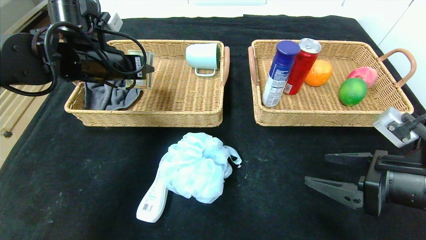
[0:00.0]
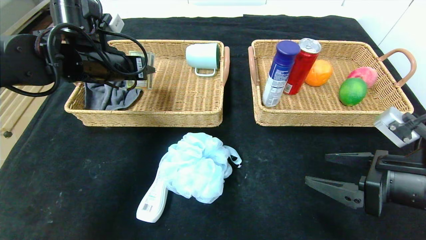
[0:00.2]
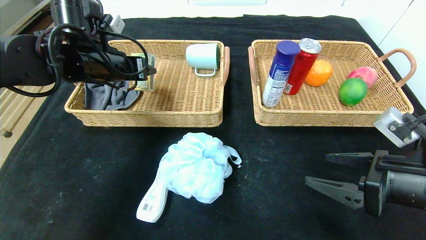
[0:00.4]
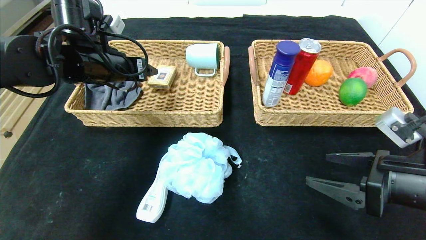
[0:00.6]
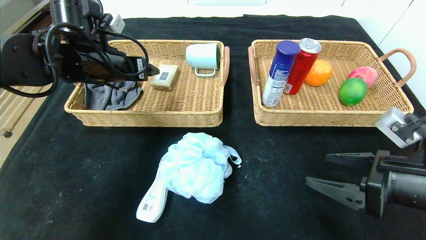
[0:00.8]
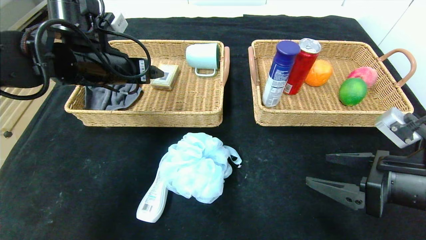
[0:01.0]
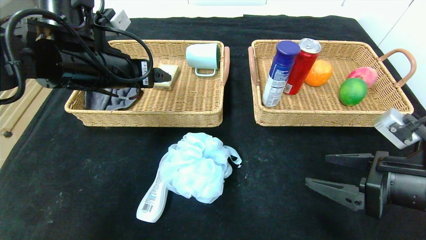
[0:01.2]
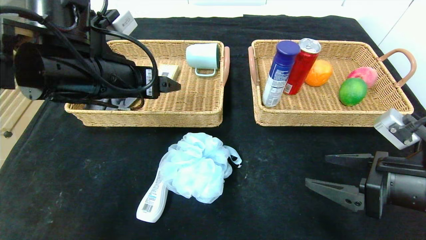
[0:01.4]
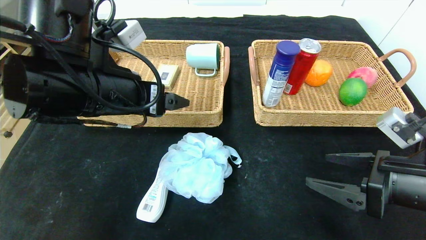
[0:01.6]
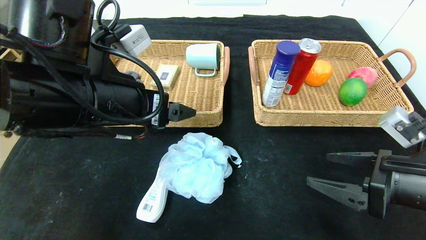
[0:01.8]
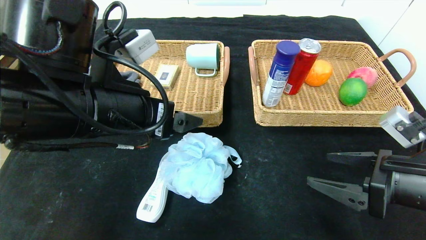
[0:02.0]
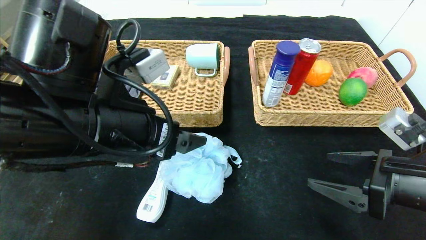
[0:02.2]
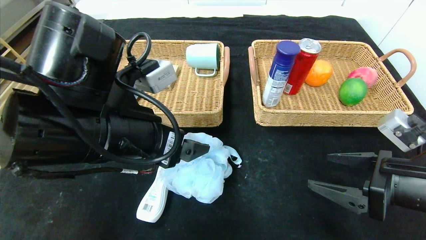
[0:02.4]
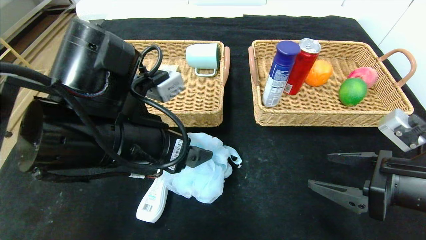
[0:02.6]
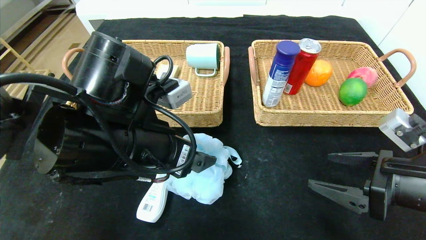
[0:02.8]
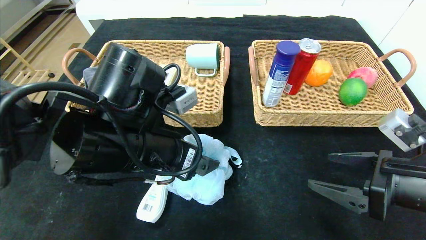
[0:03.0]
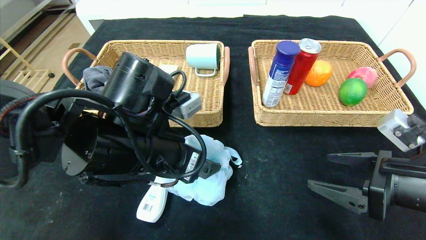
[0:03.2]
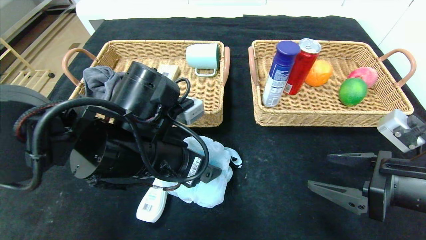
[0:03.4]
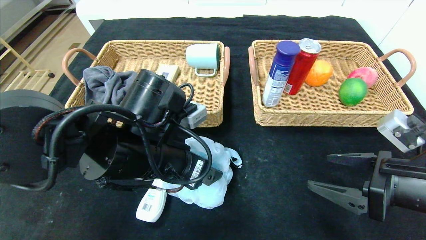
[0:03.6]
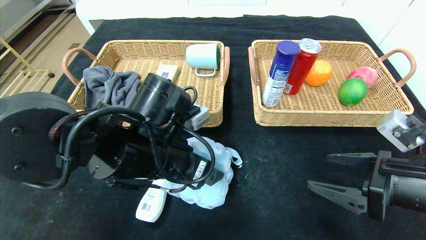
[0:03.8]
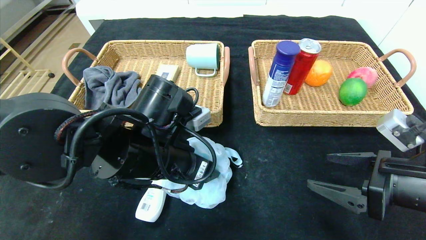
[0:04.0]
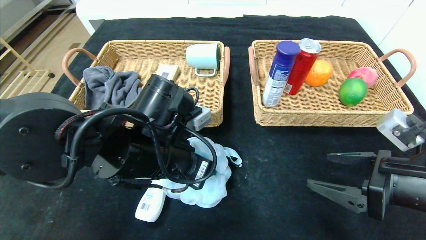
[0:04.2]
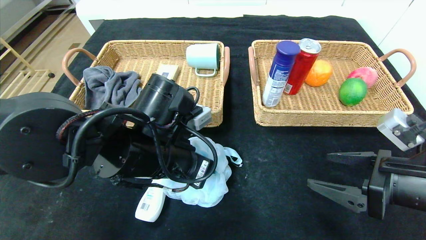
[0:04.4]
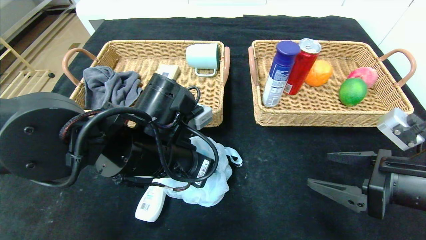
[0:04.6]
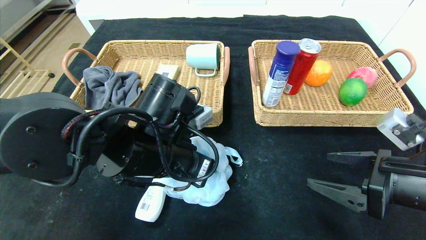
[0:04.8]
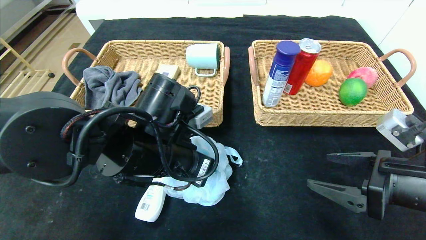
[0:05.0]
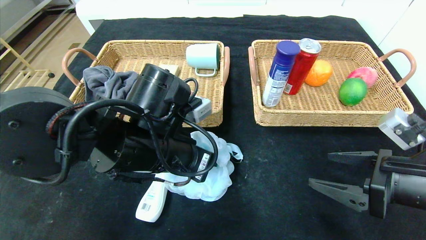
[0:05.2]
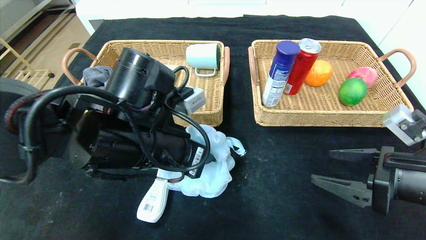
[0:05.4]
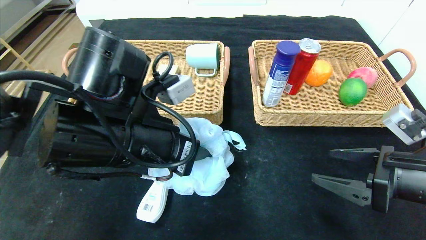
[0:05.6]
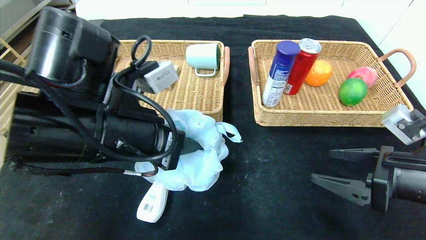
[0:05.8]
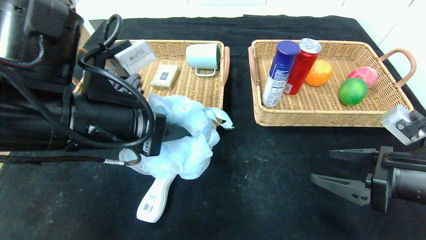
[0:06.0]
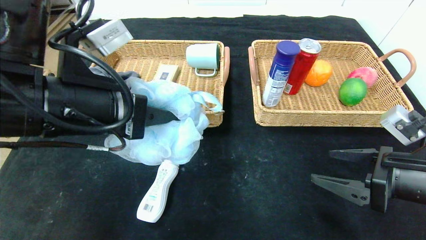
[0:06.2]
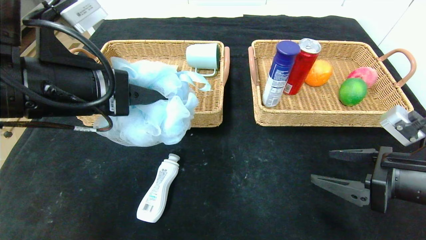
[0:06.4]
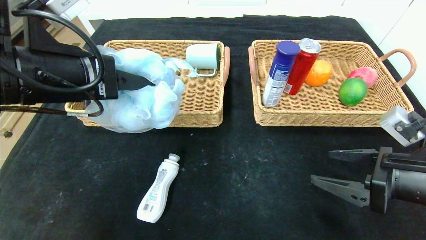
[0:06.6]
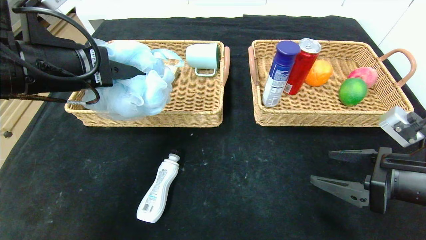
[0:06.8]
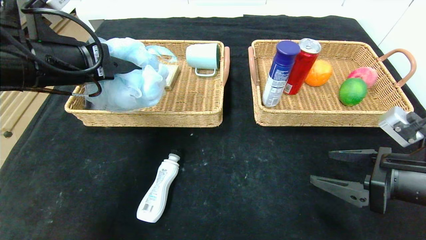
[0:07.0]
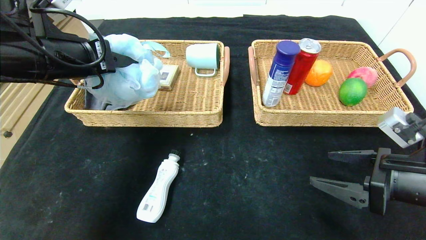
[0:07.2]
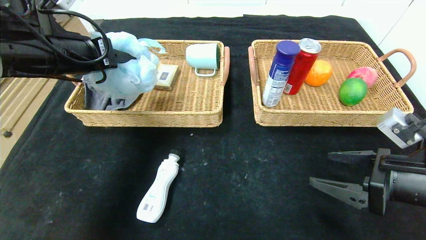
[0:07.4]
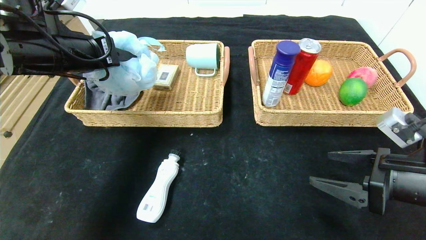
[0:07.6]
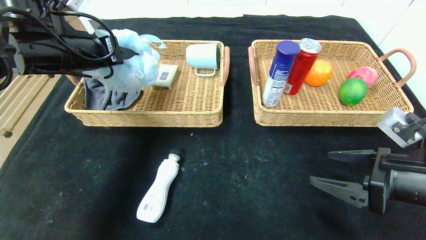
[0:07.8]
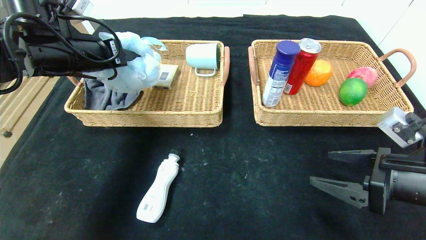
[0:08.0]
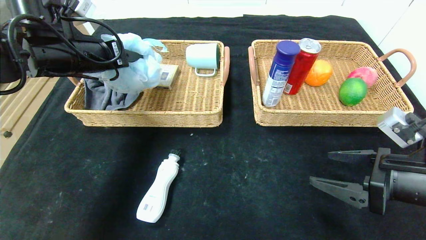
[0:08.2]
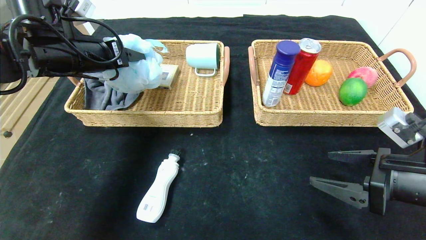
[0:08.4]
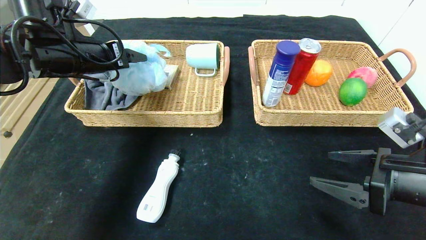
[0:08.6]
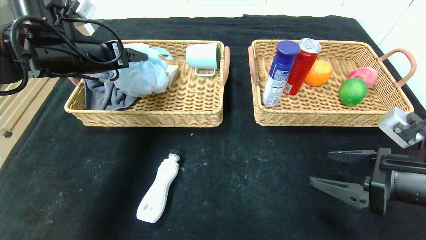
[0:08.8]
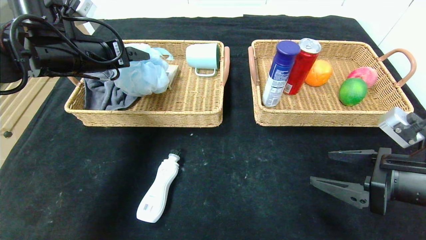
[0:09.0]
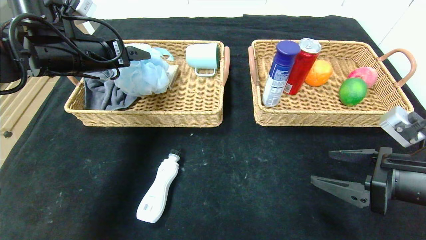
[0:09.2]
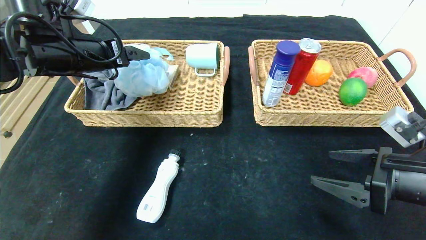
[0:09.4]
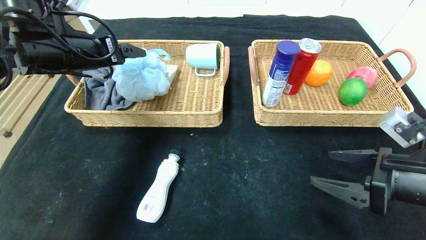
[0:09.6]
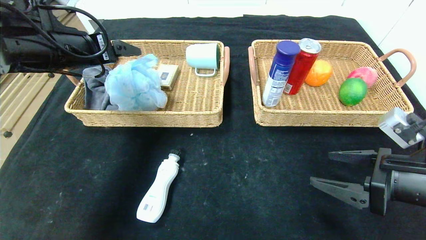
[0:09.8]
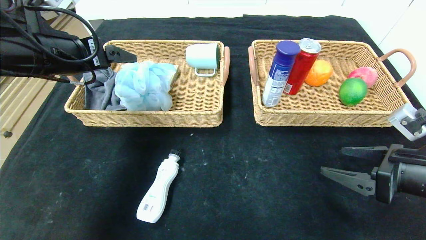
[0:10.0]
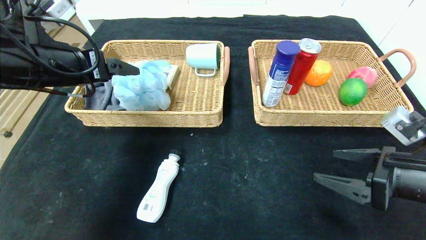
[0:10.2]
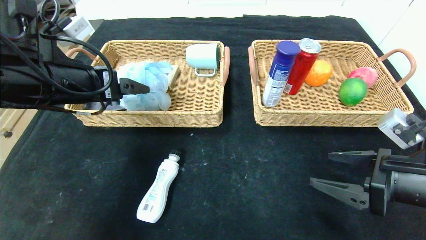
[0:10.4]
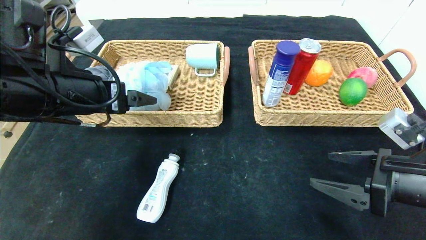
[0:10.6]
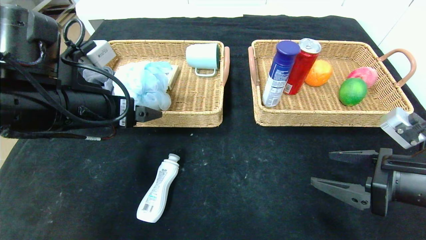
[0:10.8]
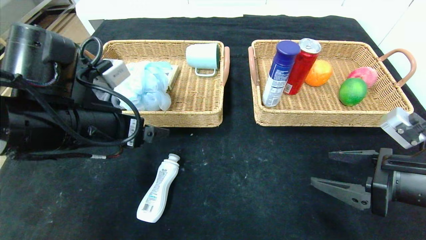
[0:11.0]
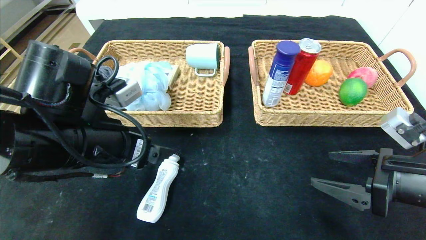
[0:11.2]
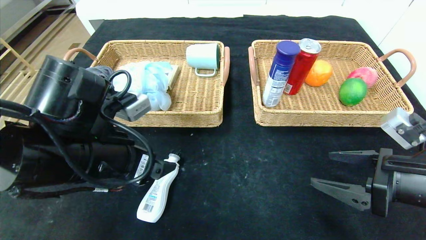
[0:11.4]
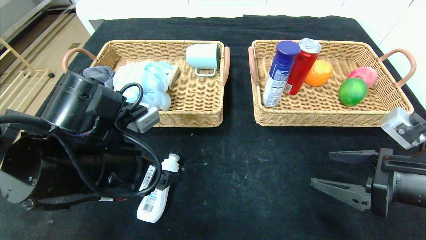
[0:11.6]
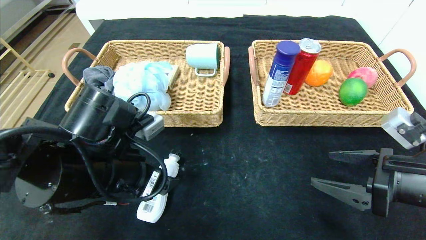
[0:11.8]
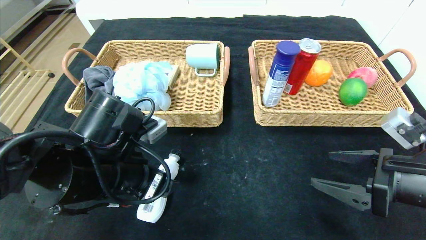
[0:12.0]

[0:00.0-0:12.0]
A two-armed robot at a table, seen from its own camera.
Step, 0:00.8 to 0:09.0: Grasp the bath ball and put it in the left basket.
0:00.0 to 0:01.6: The left gripper heads backward and to the right, covering approximately 15 cm, and opens up.
0:01.6 to 0:03.0: The left gripper goes about 5 cm downward.
0:03.0 to 0:04.4: The left gripper closes up.
0:04.4 to 0:06.0: The left gripper goes some 10 cm upward and to the left.
0:06.0 to 0:07.6: The left gripper travels forward and to the left by roughly 15 cm.
0:07.6 to 0:09.0: The left gripper opens up.
0:09.0 to 0:10.4: The left gripper moves backward, approximately 10 cm.
0:10.4 to 0:12.0: The left gripper goes roughly 15 cm downward, to the right and backward.

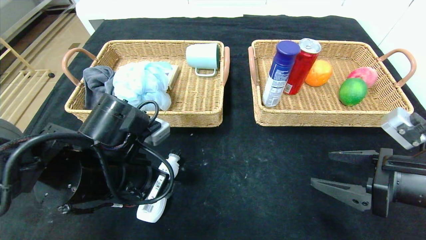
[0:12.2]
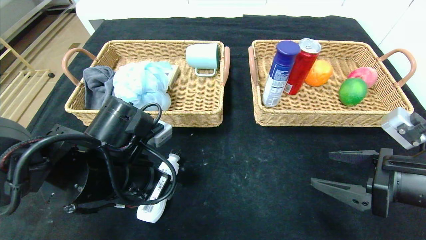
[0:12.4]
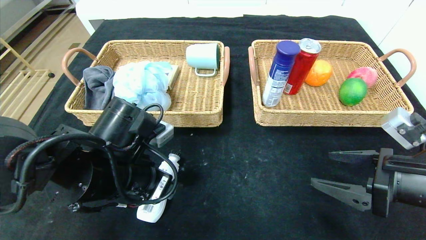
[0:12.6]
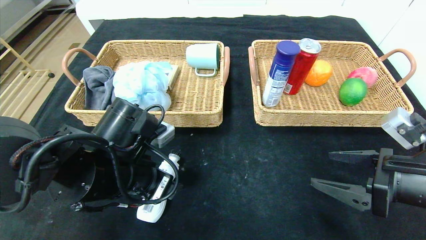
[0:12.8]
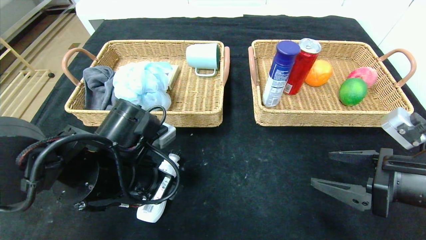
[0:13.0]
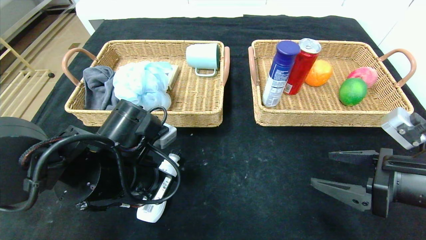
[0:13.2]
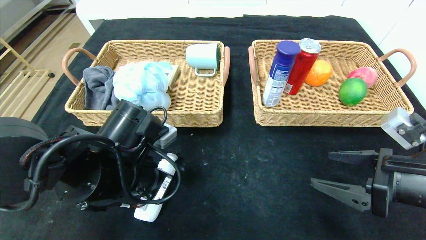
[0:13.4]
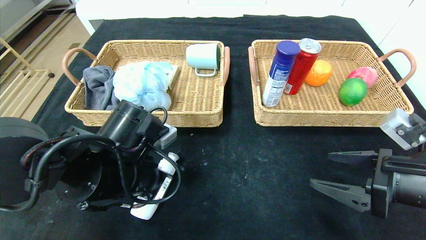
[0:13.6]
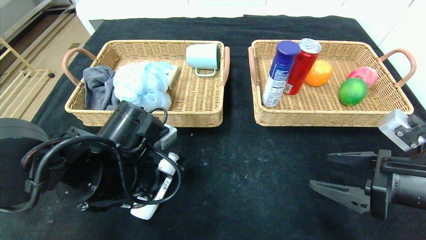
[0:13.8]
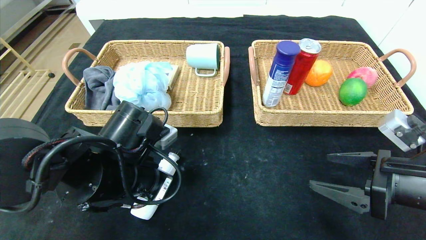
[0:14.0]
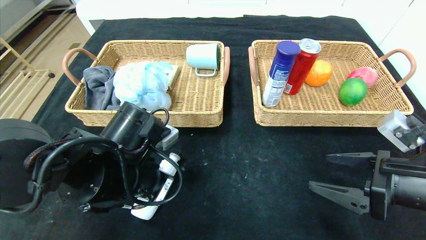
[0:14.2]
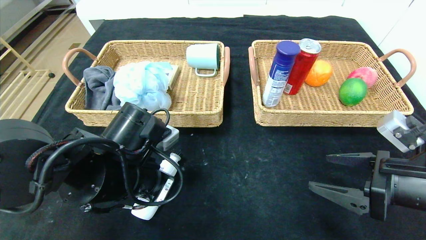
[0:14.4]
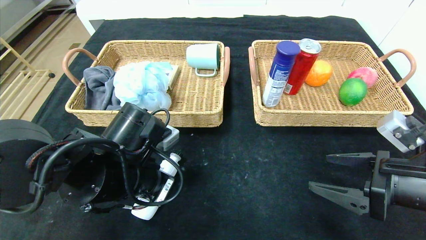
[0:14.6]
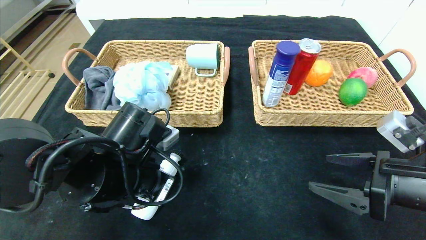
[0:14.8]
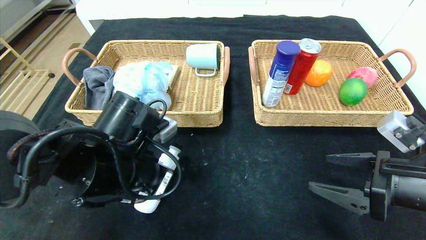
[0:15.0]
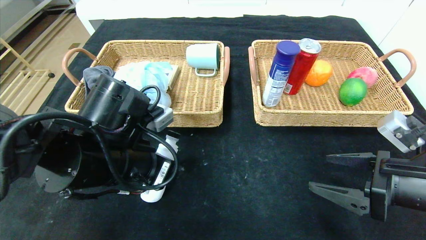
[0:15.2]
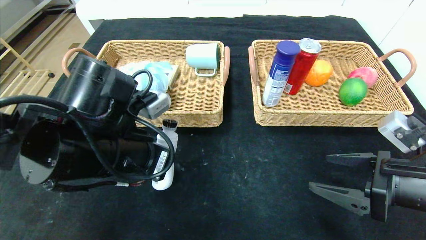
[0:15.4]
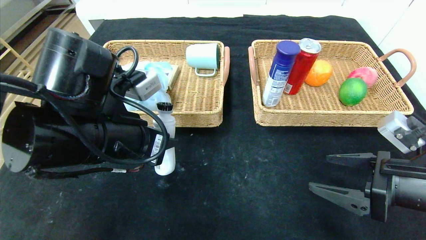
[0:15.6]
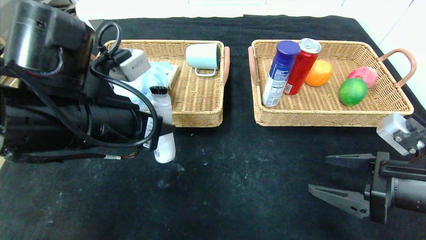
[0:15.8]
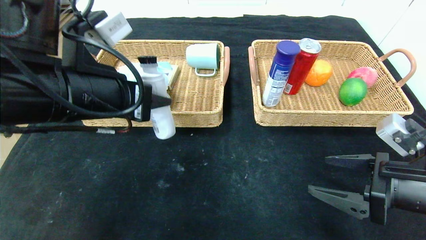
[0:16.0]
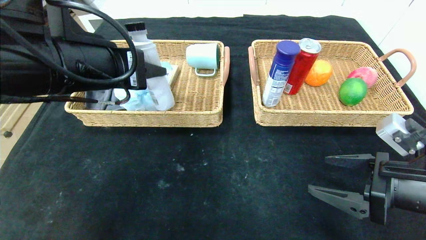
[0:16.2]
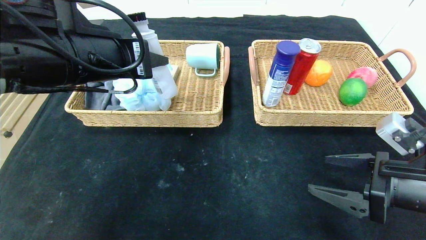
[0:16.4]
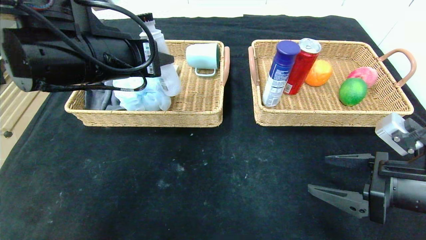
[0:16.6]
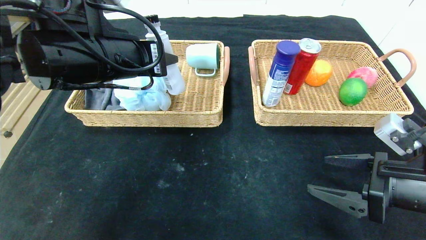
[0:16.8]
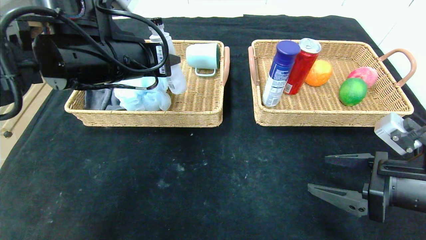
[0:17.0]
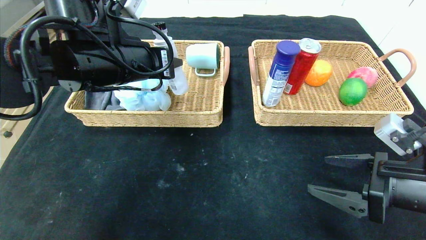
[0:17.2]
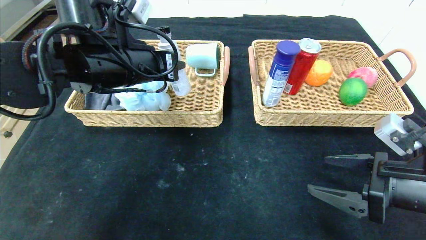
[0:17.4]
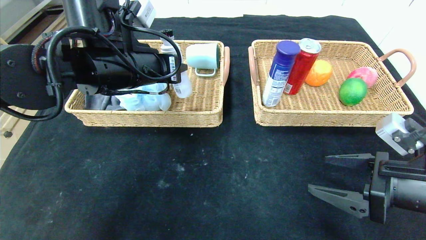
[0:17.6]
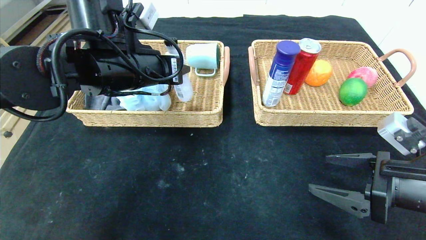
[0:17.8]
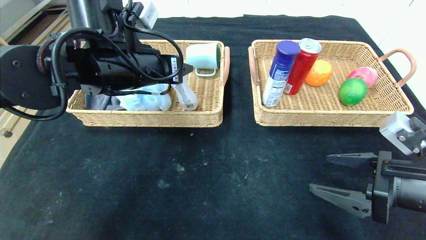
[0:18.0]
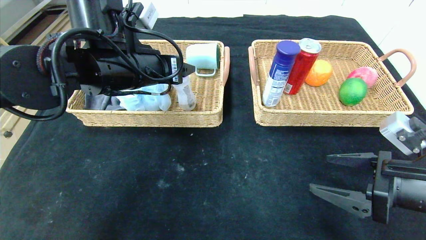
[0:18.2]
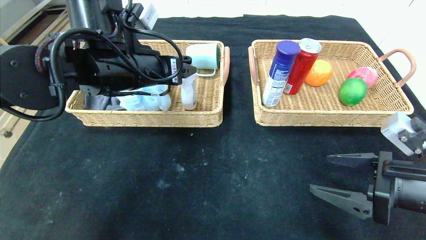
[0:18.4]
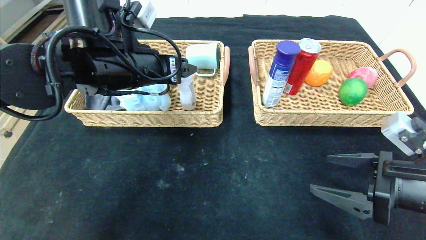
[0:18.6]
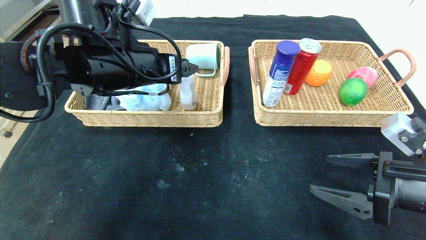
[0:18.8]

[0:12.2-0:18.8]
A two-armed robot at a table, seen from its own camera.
Step, 0:12.2 to 0:18.0: Grasp the washing liquid and put it in the left basket.
0:12.2 to 0:13.8: The left gripper closes its fingers.
0:13.8 to 0:15.4: The left gripper heads upward, covering roughly 5 cm.
0:15.4 to 0:17.2: The left gripper is displaced forward and upward by about 10 cm.
0:17.2 to 0:18.8: The left gripper opens its fingers.
